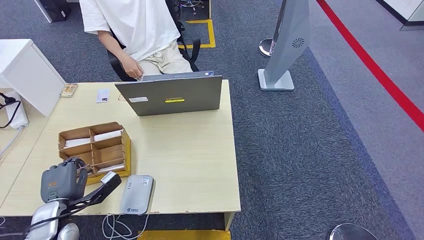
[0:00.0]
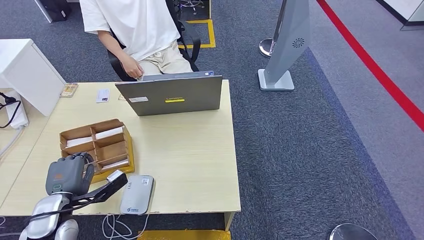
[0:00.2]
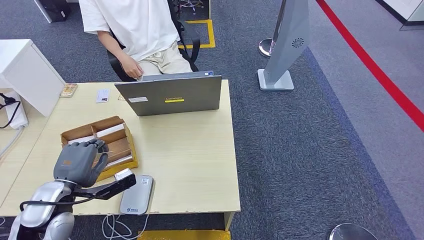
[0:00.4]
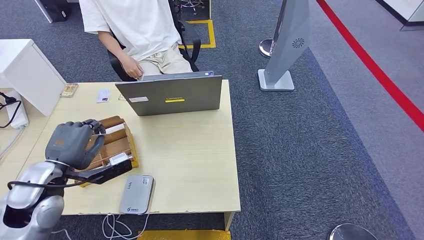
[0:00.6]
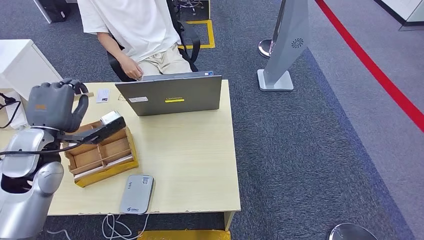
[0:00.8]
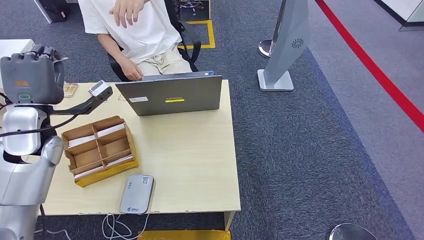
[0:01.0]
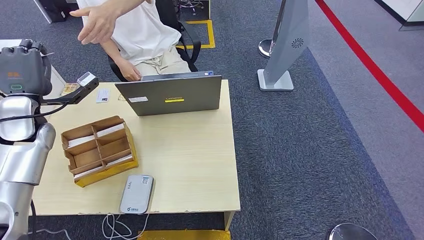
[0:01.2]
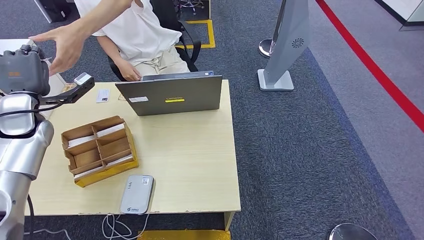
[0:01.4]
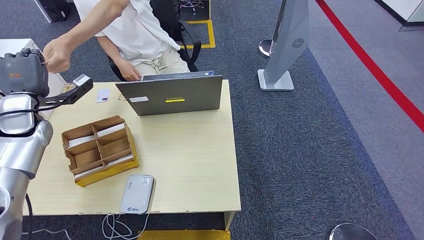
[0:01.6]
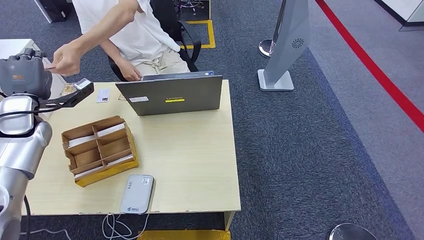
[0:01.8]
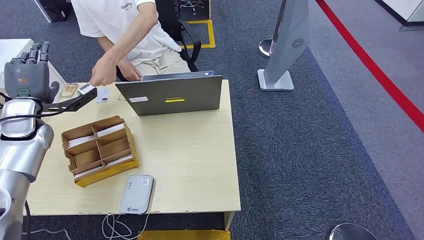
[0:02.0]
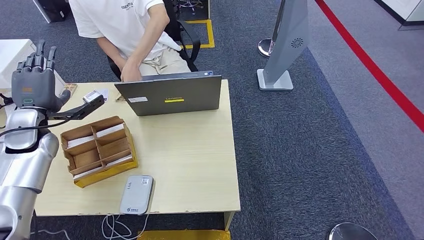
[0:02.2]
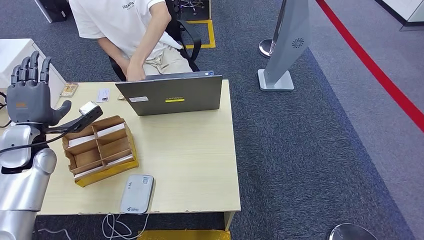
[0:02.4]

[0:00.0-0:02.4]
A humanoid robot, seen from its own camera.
Step, 0:00.0 to 0:02.4: Hand the room key to the person.
0:00.0 to 0:01.2: The left hand travels upward and forward by some 25 cm.
0:01.2 to 0:02.4: The left hand is displaced downward by approximately 5 cm.
